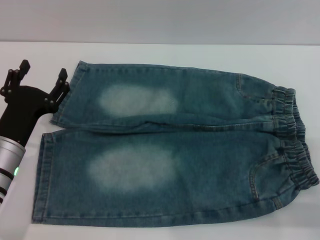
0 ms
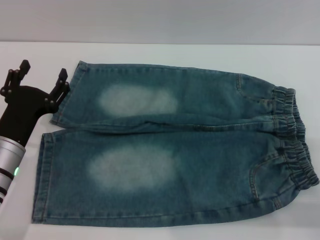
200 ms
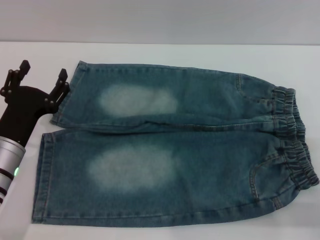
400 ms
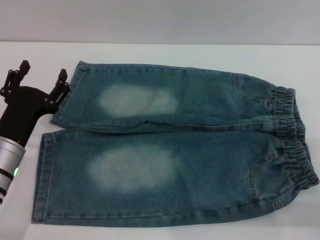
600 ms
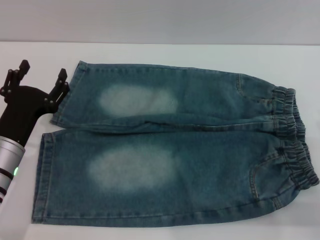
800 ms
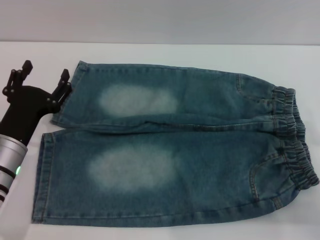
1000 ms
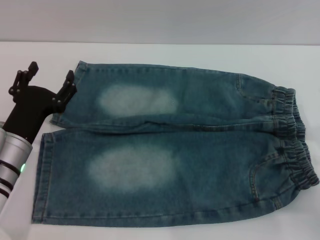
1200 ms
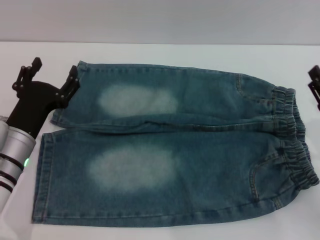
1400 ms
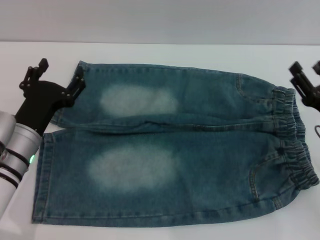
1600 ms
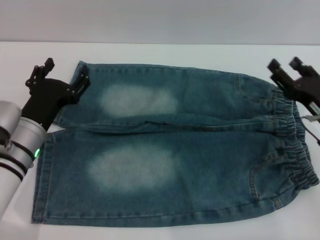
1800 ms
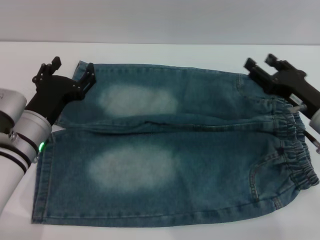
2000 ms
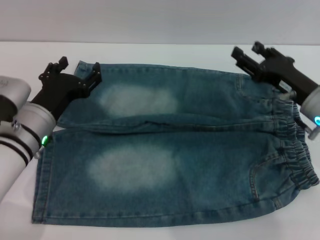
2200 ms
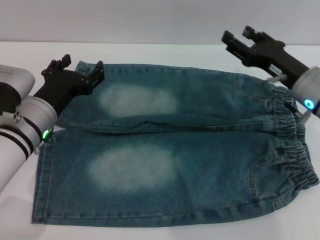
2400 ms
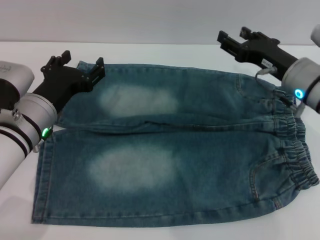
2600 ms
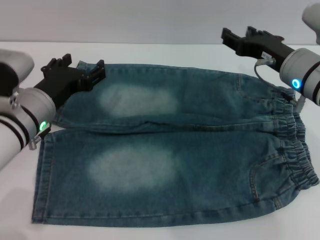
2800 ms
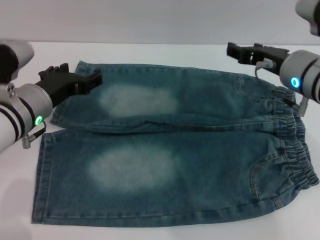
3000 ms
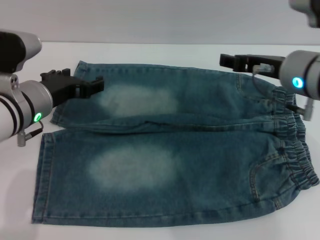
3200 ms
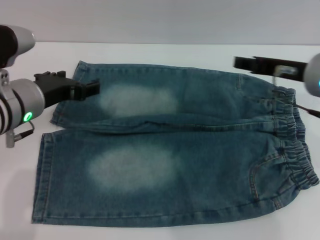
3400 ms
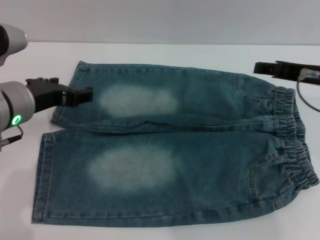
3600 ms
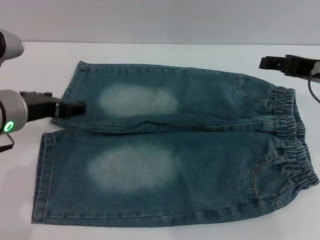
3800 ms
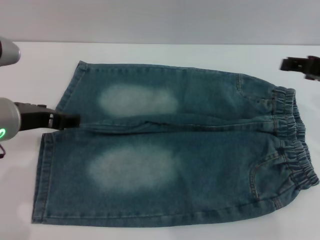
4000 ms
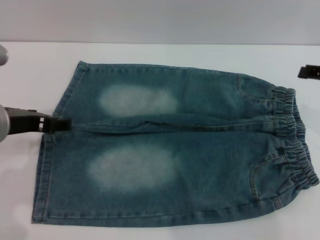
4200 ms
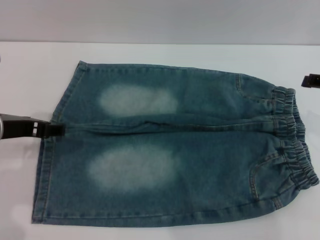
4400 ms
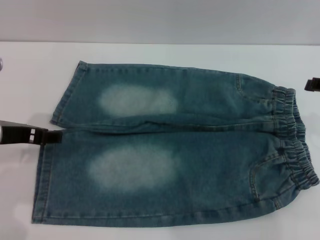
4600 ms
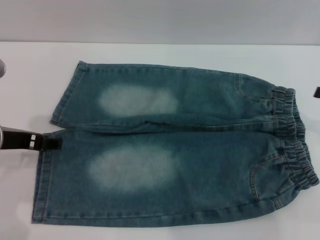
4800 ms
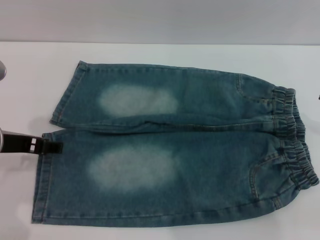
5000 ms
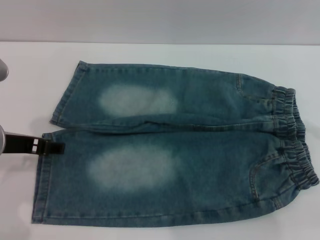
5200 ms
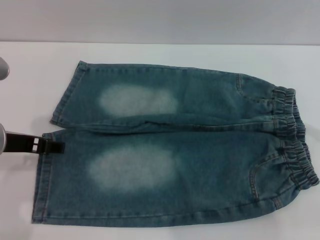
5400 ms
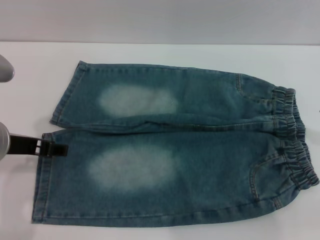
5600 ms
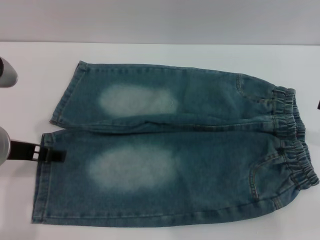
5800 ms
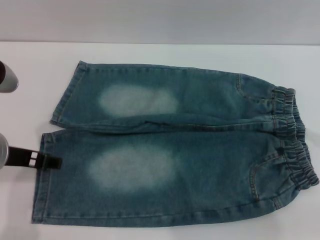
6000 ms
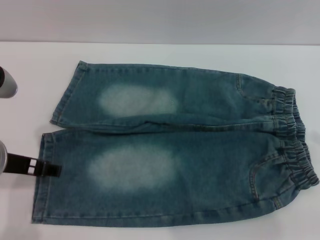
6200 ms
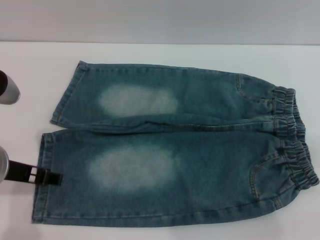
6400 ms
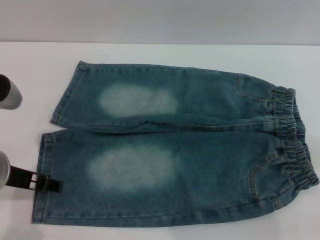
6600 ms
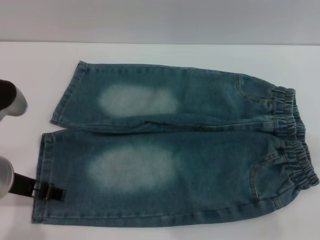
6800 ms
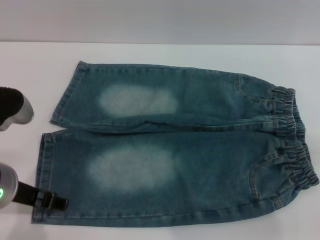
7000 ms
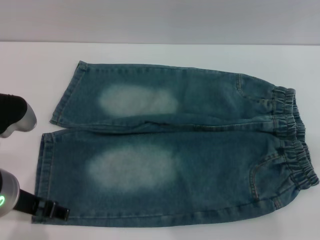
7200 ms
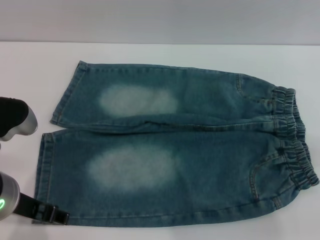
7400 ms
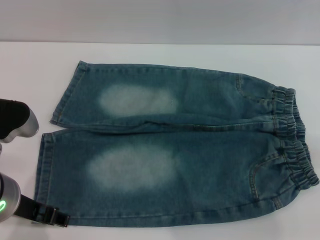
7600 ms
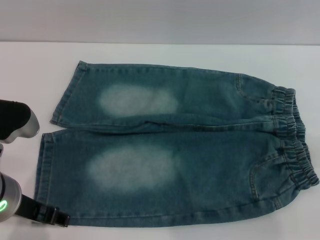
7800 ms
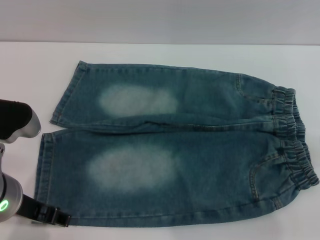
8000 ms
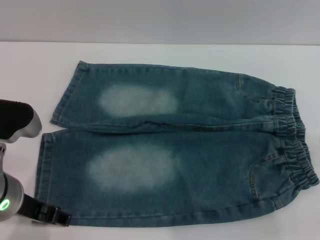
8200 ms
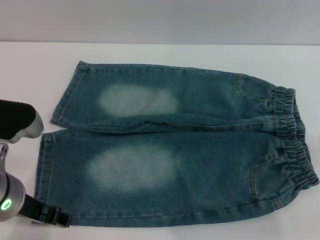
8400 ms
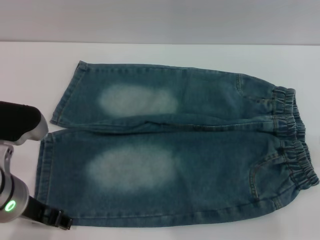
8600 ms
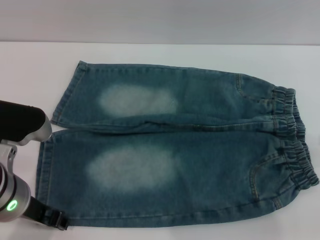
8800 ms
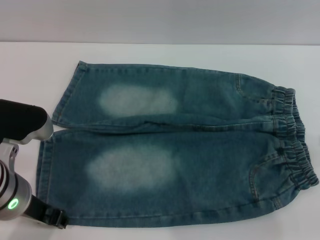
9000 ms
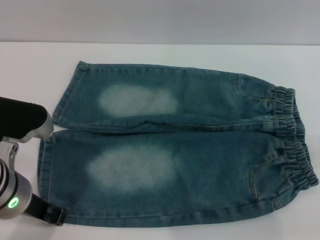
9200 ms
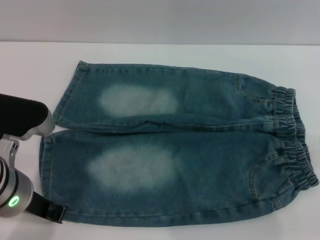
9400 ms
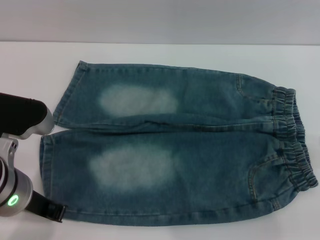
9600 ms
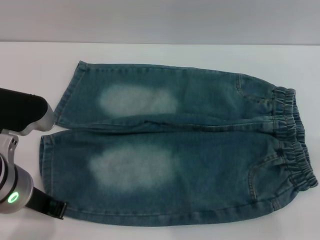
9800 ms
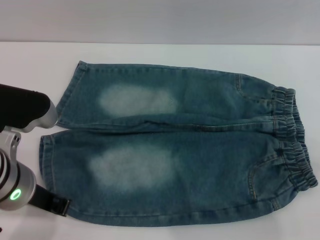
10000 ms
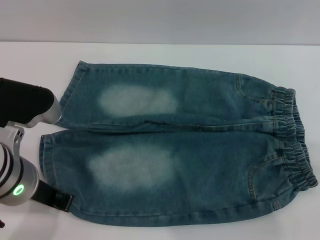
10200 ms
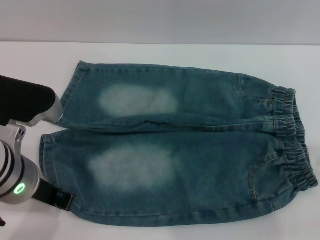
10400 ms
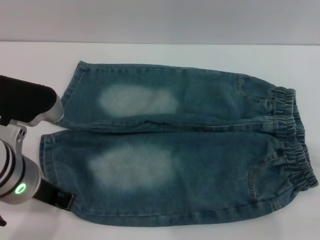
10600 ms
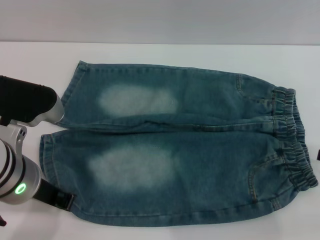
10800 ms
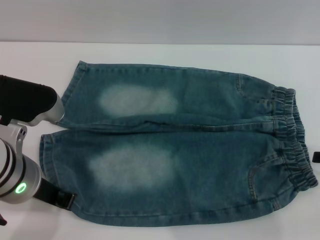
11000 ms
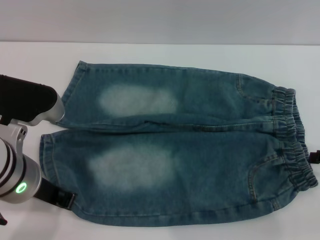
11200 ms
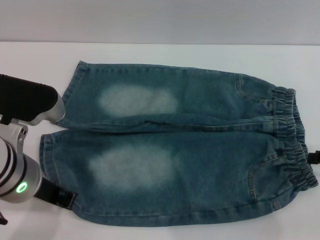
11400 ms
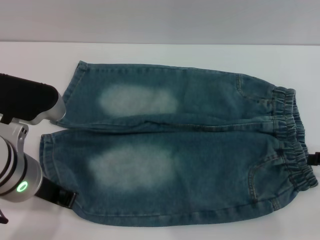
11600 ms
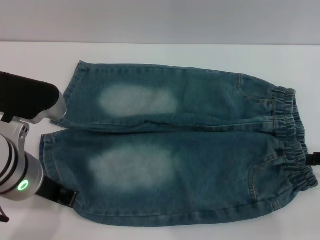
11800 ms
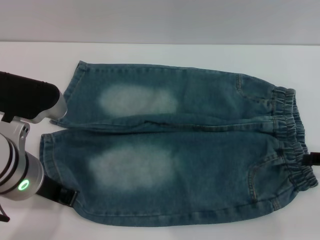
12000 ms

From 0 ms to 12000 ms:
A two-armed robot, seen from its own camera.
From 0 ms to 1600 ms: The right gripper heads forward, covering some 5 cm.
From 1600 ms to 3000 ms: The right gripper is displaced upward, to the left and forward by approximately 15 cm; the left gripper moves upward, some 5 cm.
From 3000 ms to 4400 ms: The left gripper travels upward by approximately 5 cm. Meanwhile the right gripper heads to the right and backward, covering about 10 cm.
From 6000 ms to 9000 ms: There are only small adjustments of the grippers.
From 9000 ms to 10400 ms: The left gripper closes.
From 10400 ms to 12000 ms: The grippers move only a little.

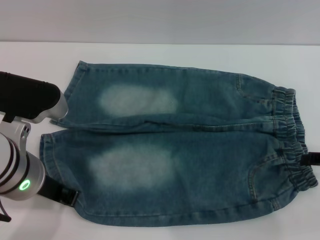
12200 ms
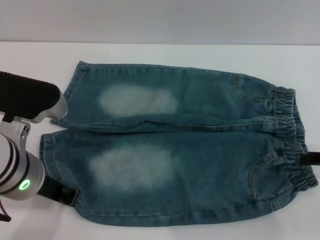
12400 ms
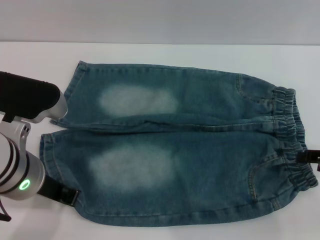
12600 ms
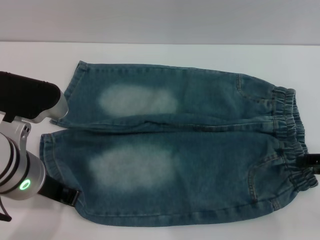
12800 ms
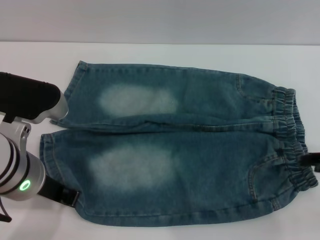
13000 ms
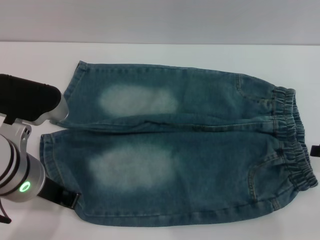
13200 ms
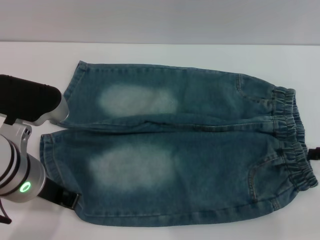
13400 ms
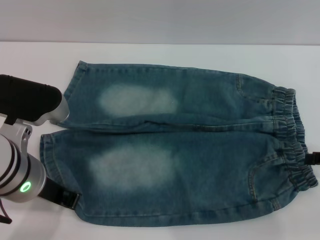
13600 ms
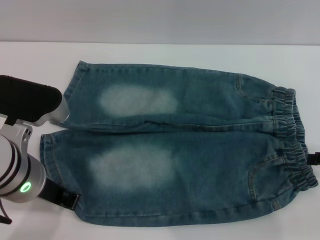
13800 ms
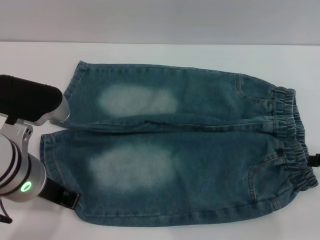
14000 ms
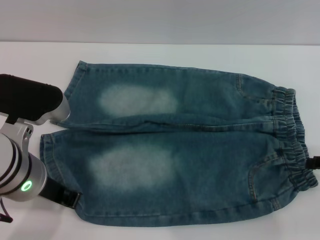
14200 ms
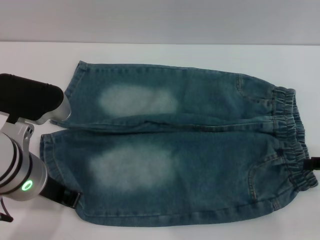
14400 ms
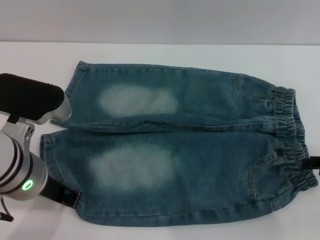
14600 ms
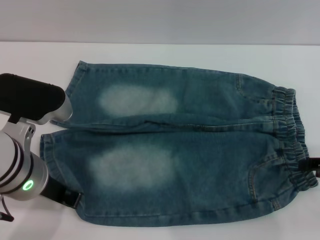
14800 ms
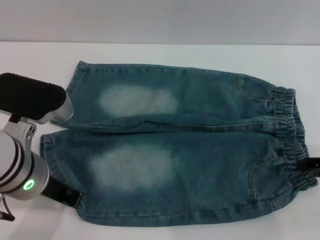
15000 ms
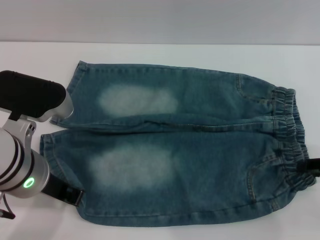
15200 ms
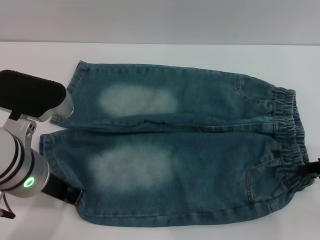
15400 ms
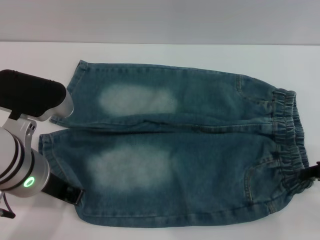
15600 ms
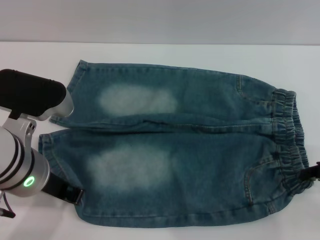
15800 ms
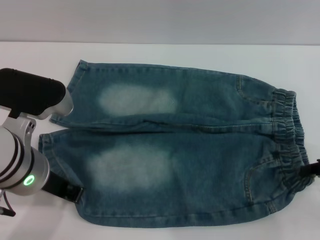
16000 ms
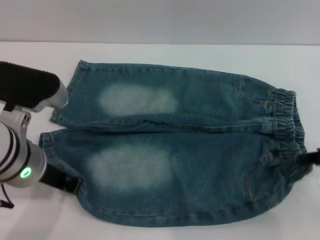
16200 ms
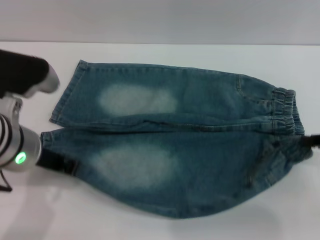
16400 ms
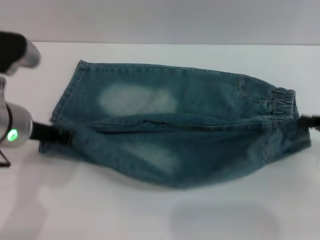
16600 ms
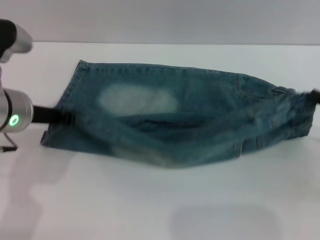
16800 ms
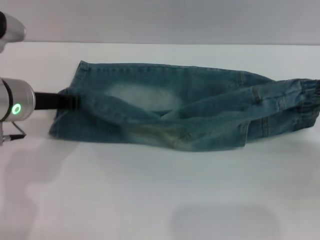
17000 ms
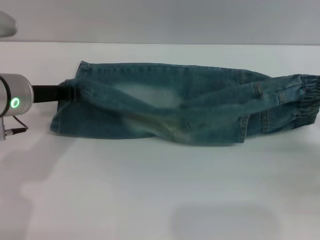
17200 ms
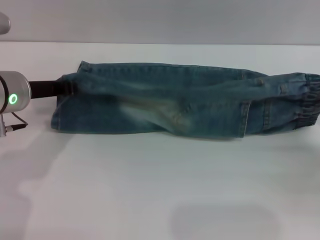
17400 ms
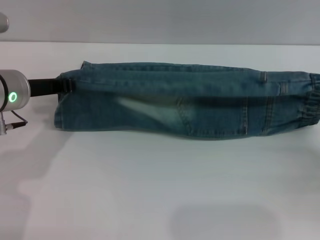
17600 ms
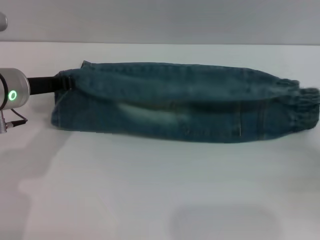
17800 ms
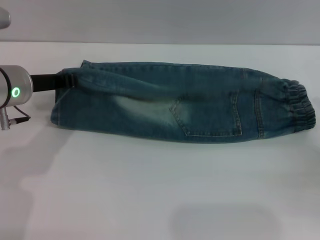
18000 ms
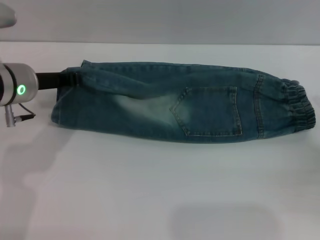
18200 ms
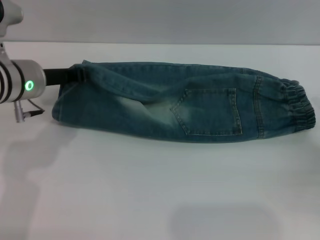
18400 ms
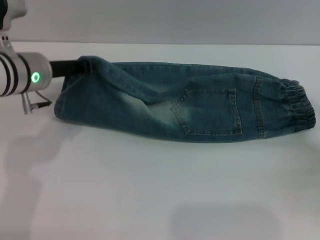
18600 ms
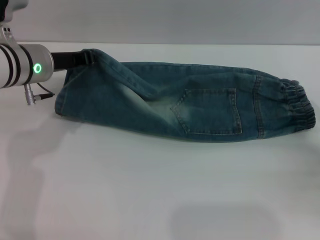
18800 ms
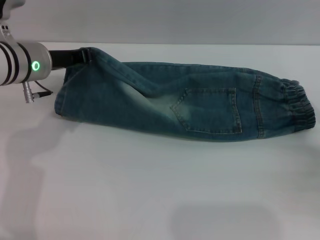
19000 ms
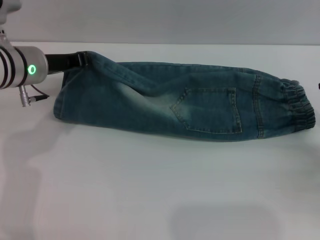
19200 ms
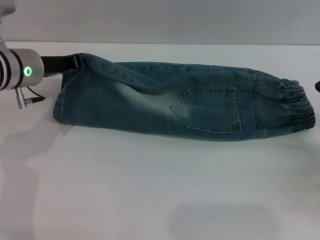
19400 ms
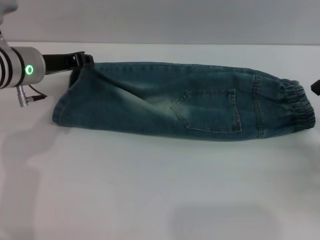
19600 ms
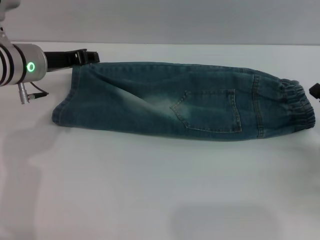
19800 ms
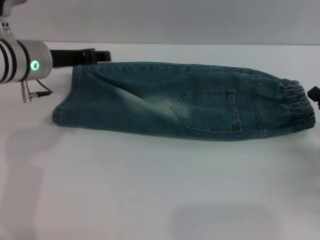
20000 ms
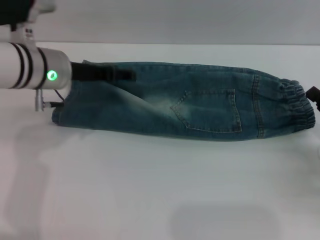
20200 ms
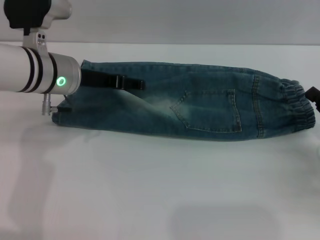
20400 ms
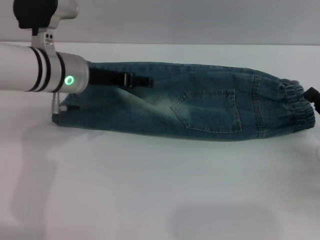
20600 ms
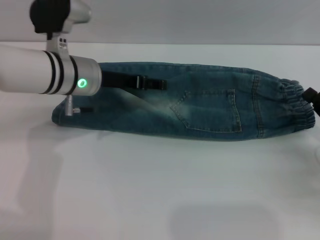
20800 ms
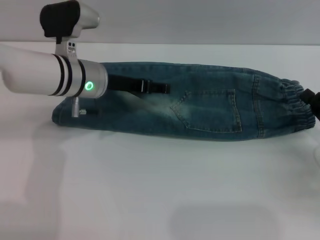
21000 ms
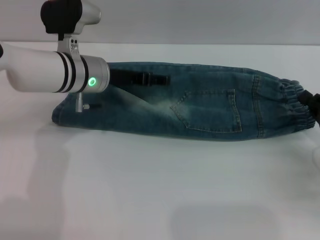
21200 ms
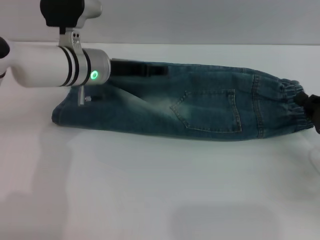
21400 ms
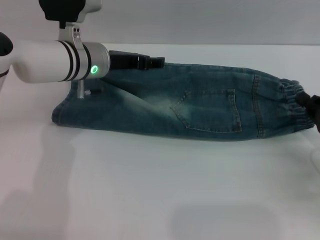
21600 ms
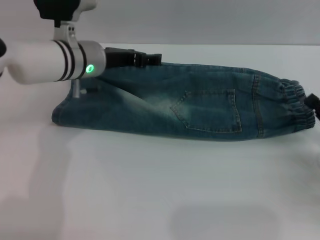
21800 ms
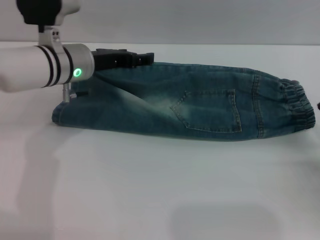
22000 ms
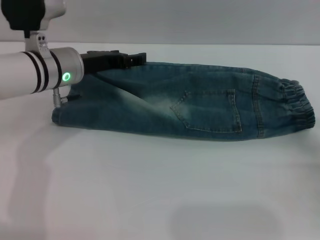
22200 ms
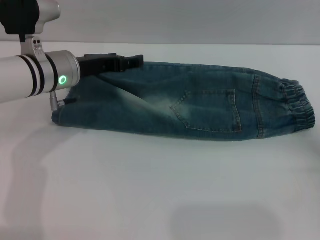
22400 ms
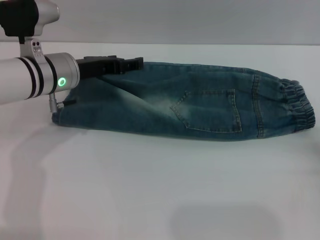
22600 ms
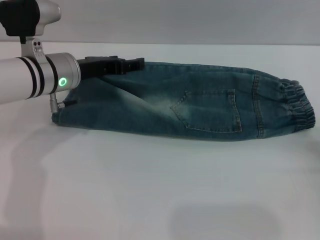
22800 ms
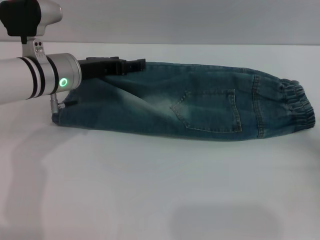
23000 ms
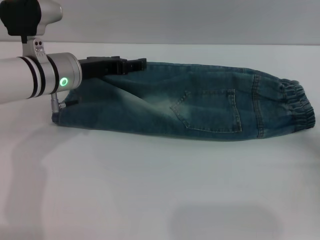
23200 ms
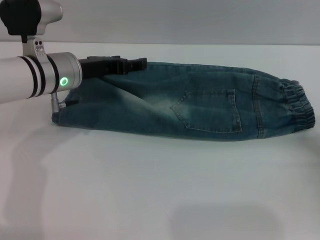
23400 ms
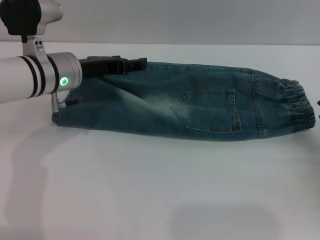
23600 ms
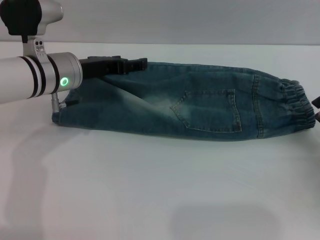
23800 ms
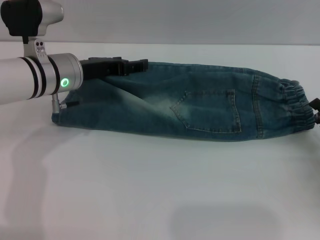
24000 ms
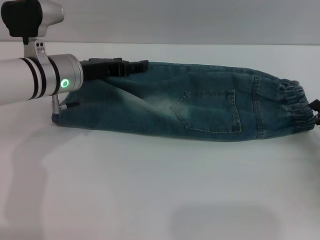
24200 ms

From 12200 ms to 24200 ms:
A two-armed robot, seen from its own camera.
Step, from 12200 ms to 21400 ms: Fold the bottom of the pants upward with both grippers.
From 12200 ms to 13800 ms: Neither gripper changes place.
From 13800 ms to 15200 ms: The grippers make only small movements.
From 15200 ms to 16600 ms: The right gripper closes up.
From 16600 ms to 18200 ms: The left gripper heads forward, covering about 5 cm. Meanwhile the right gripper moves downward, about 5 cm.
From 18200 ms to 19800 ms: The grippers move only a little.
From 19800 ms to 21200 ms: The left gripper heads to the right, covering some 10 cm, and opens.
From 21200 ms to 22600 ms: The right gripper changes place by approximately 5 cm.
From 22600 ms to 24200 ms: The right gripper opens its fingers.
